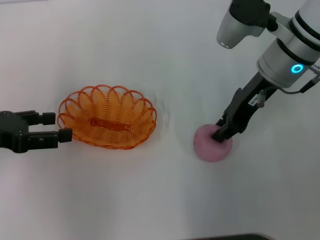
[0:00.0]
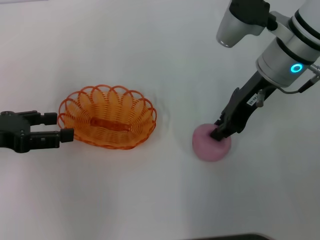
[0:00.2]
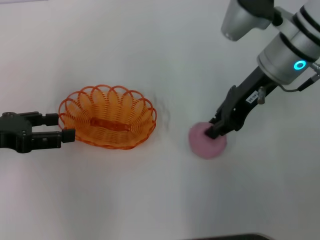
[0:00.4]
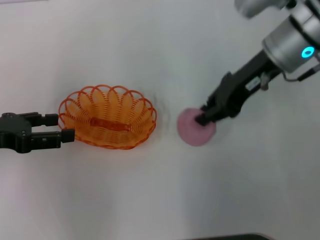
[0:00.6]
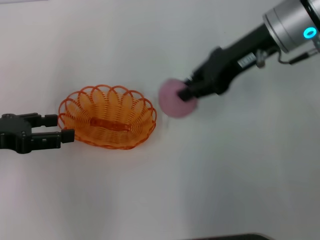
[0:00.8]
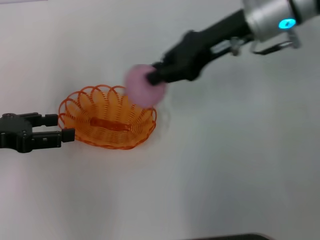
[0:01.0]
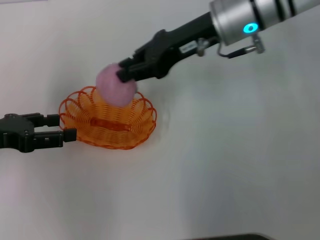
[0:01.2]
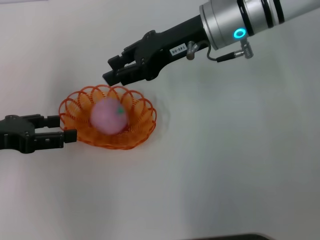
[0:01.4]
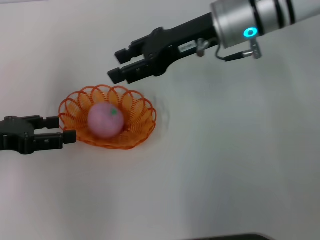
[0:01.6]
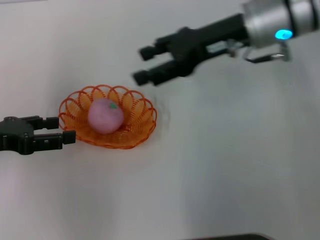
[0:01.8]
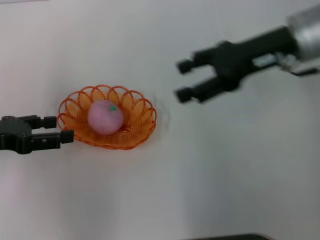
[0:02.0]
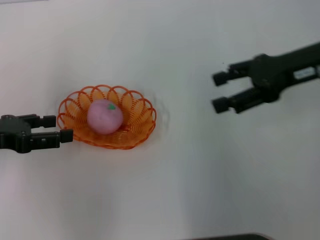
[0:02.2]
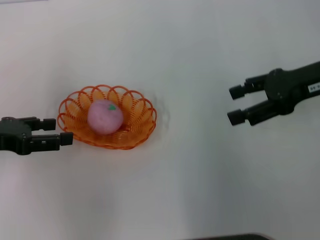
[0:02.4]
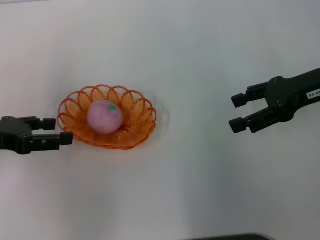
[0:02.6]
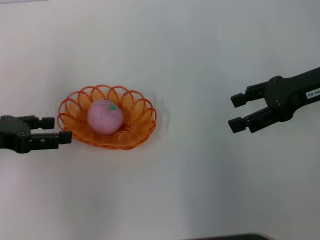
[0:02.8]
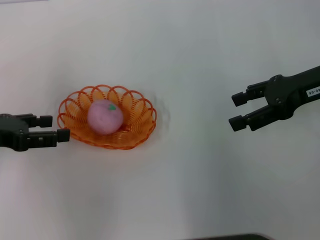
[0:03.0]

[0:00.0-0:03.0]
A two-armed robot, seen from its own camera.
Step, 0:00.8 to 0:01.8: Place the peach into the basket with the right gripper.
0:00.0 to 0:01.6: The right gripper shifts by some 5 cm, and closes, then reopens.
0:01.6 to 0:03.0: The right gripper shifts roughly 15 cm to the right and backward, and opens its fingers.
